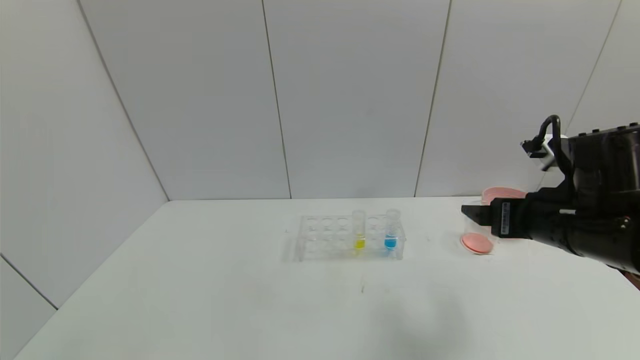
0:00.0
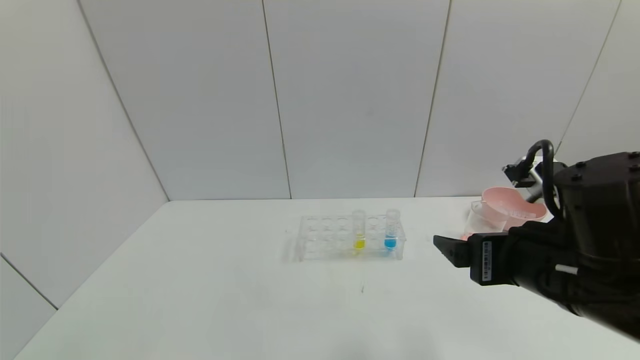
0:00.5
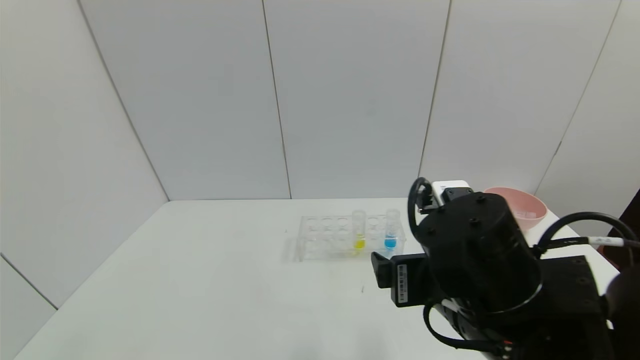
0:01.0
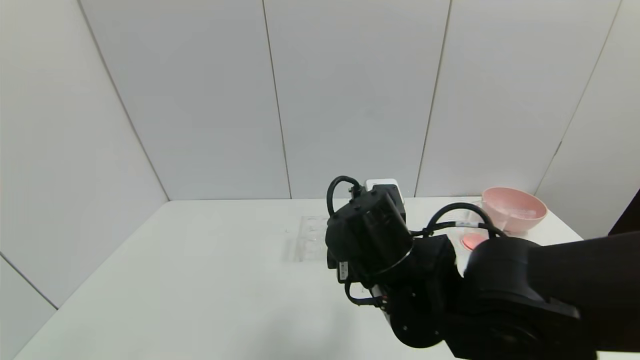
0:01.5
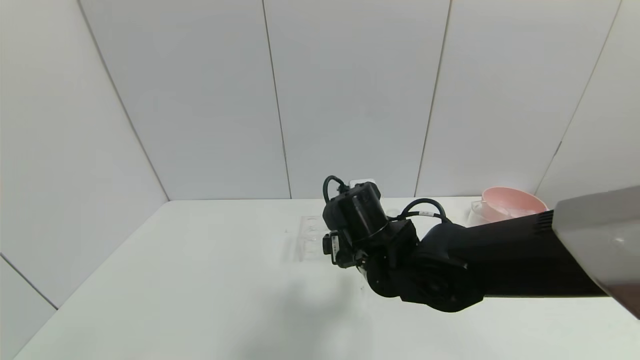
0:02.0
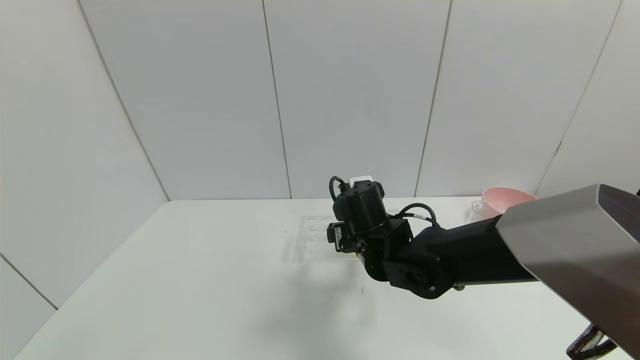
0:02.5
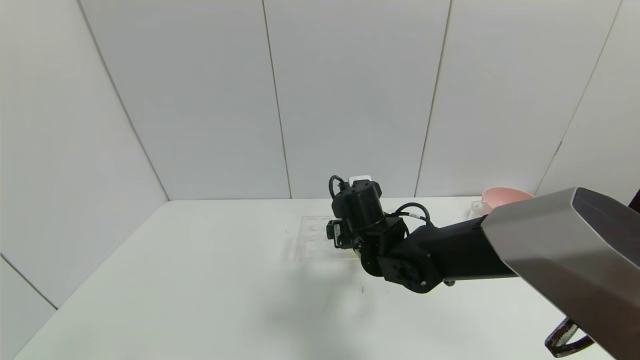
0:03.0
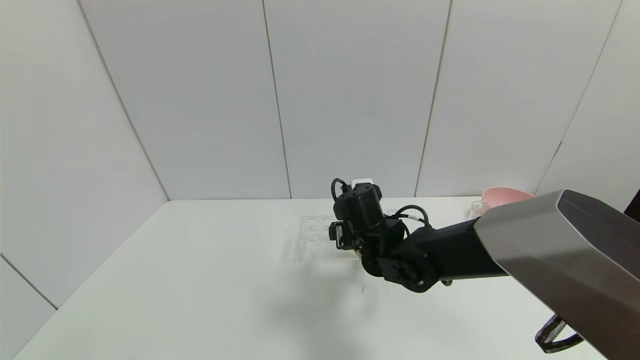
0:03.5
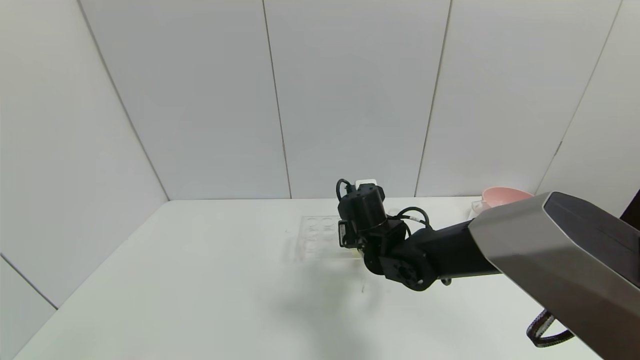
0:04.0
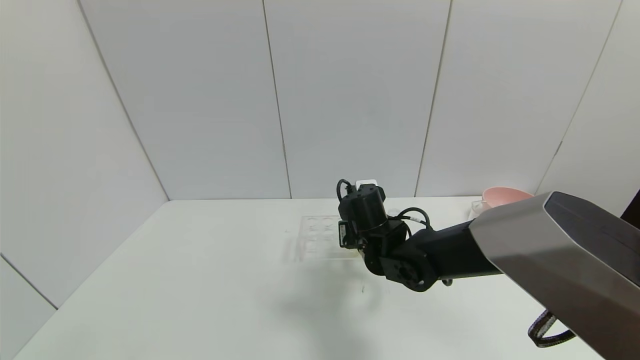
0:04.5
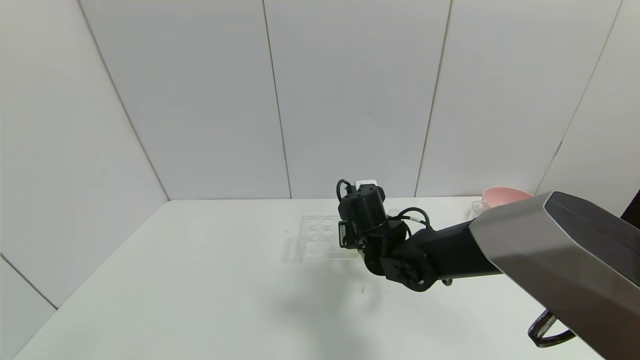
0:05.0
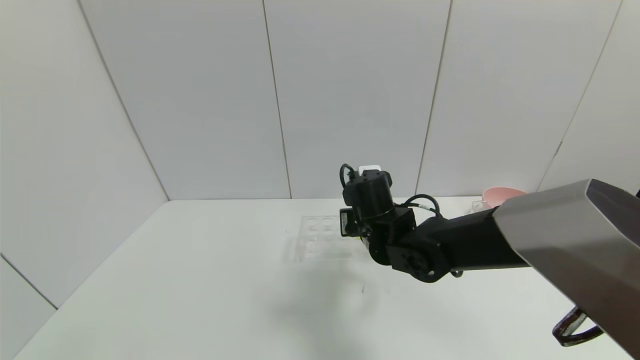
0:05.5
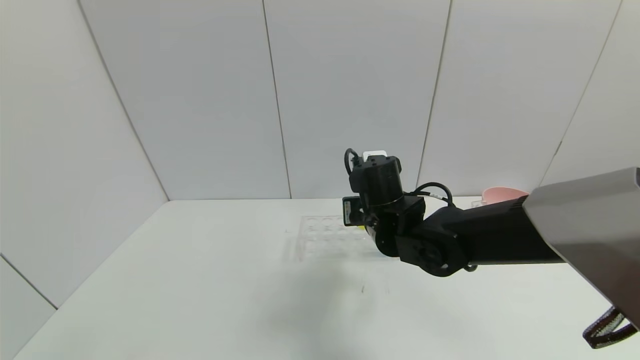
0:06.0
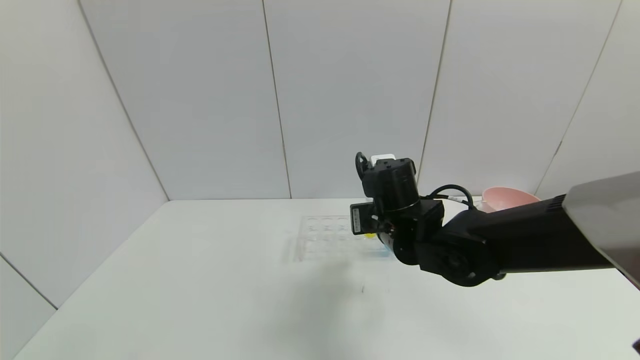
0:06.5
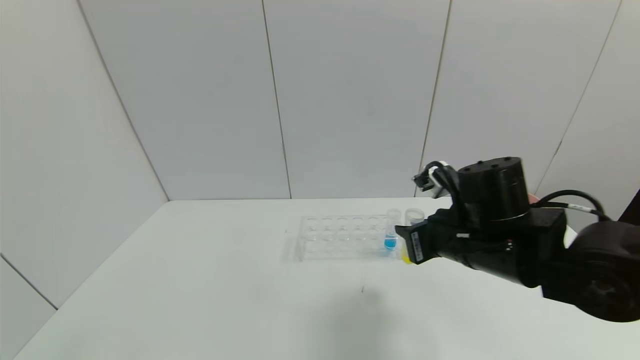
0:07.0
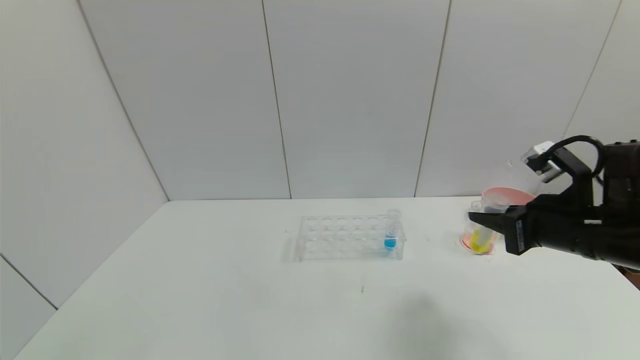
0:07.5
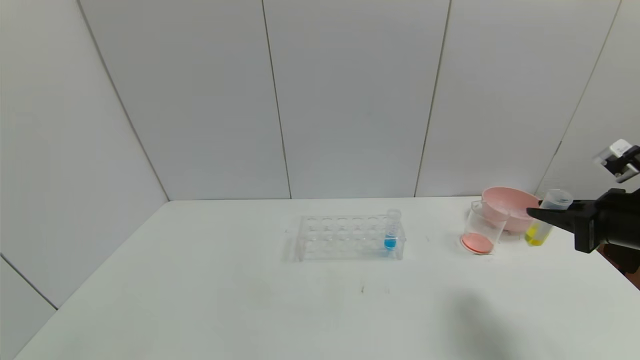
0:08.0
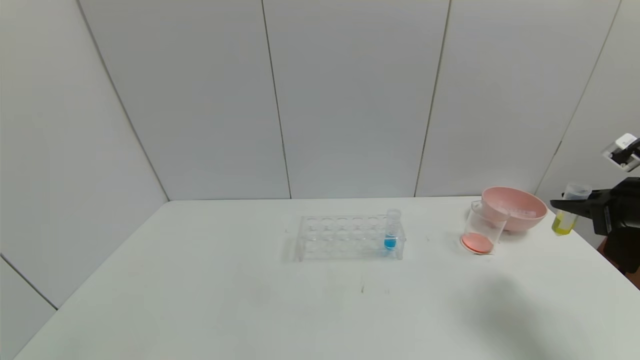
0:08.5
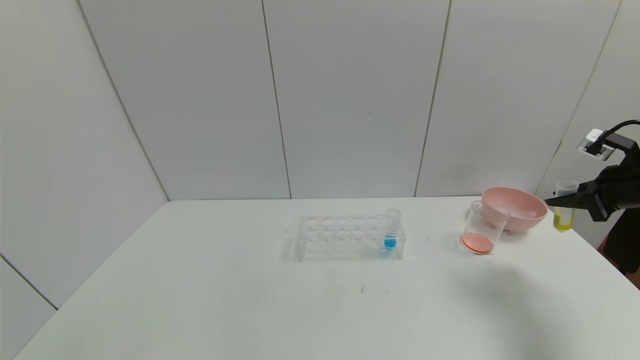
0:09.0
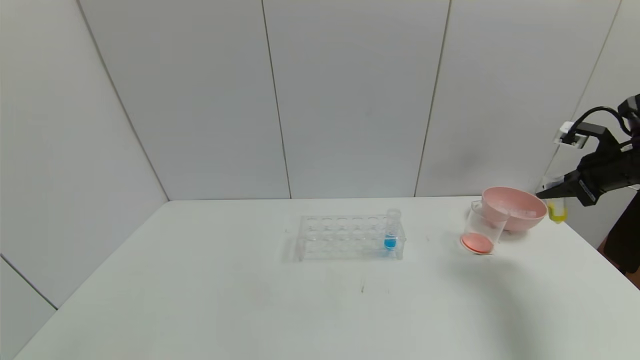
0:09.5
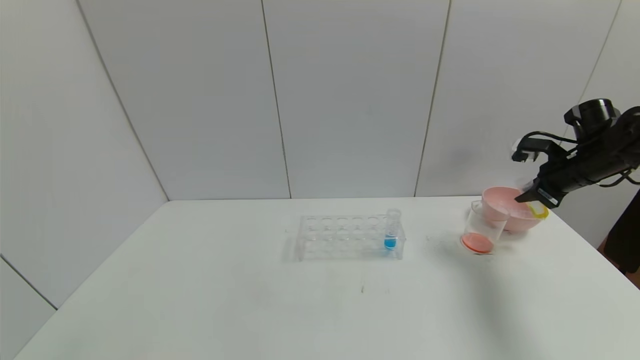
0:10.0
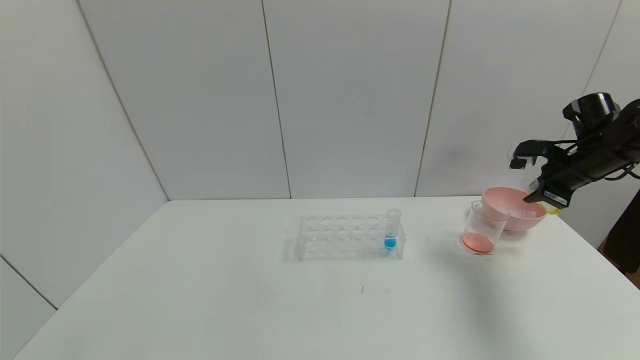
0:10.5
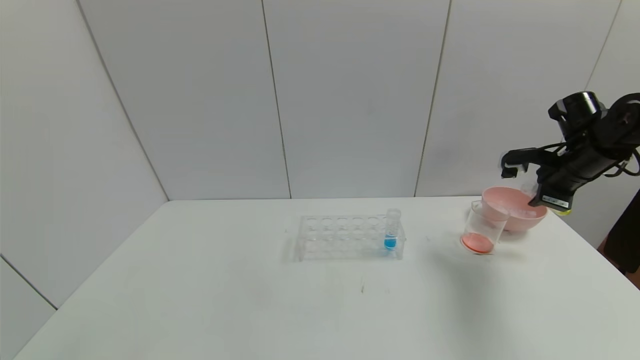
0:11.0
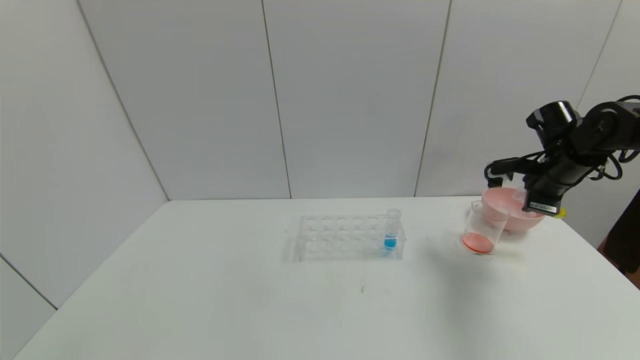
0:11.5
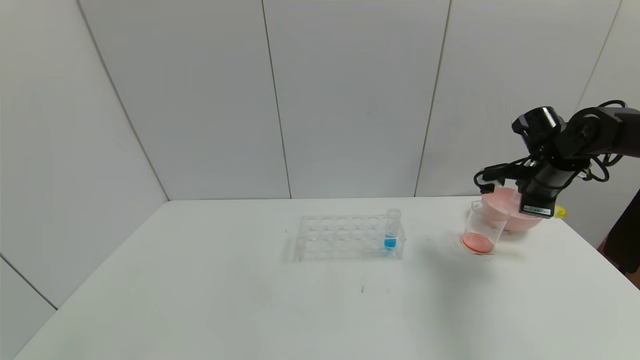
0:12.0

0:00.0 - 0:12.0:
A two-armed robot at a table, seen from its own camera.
Task of the whole recording: pick up the test tube with yellow pigment and the test tube with red pigment by grippers and pour them into the beaker.
Step, 0:00.0 - 0:04.5: Grasp the yellow reagent with the right gripper.
0:00.0 - 0:02.0: The right gripper goes approximately 20 cm to the left.
0:02.0 - 0:04.0: The right gripper moves forward, roughly 5 cm, and closes.
0:04.0 - 0:06.0: The right gripper heads upward, covering about 5 cm, and closes.
0:06.0 - 0:08.0: The right gripper travels to the right by some 30 cm.
0:08.0 - 0:10.0: The right gripper is displaced forward by roughly 15 cm.
0:10.0 - 0:12.0: The right gripper shifts roughly 5 cm to the left.

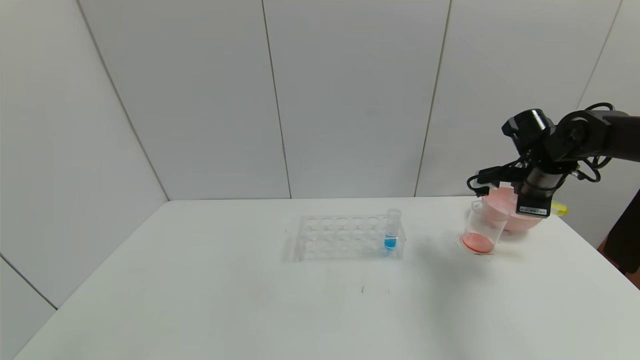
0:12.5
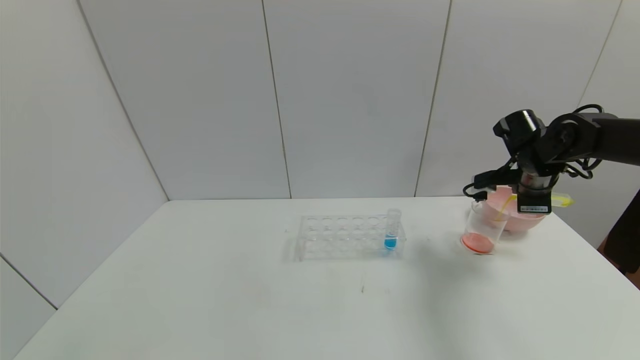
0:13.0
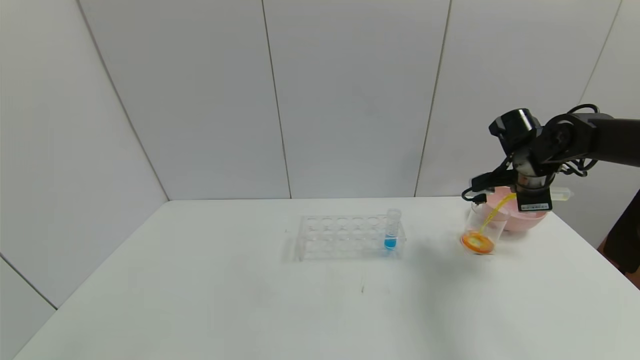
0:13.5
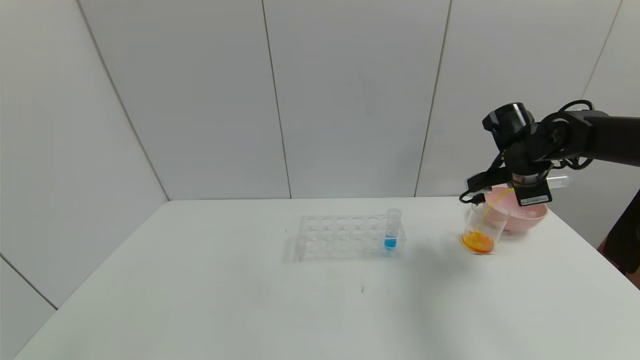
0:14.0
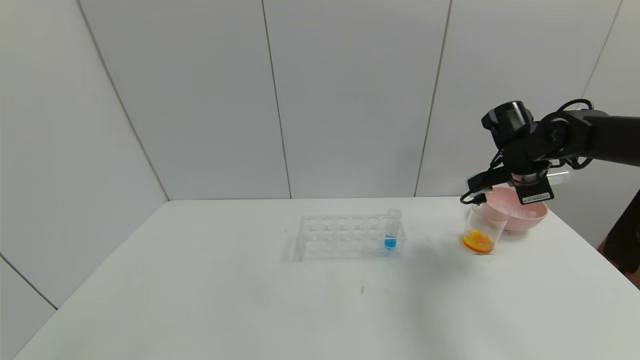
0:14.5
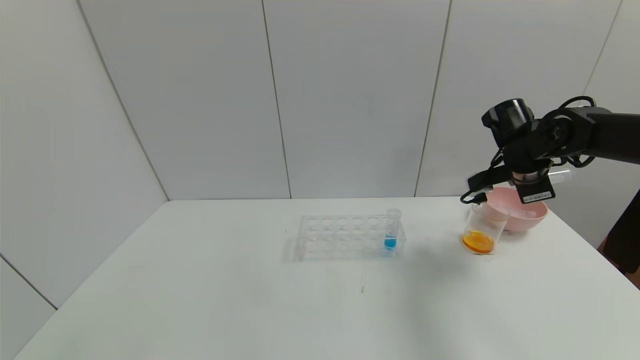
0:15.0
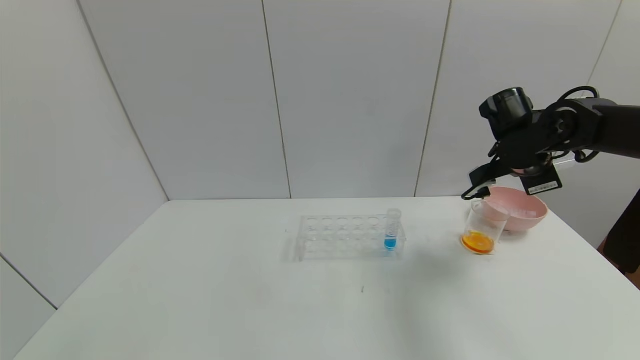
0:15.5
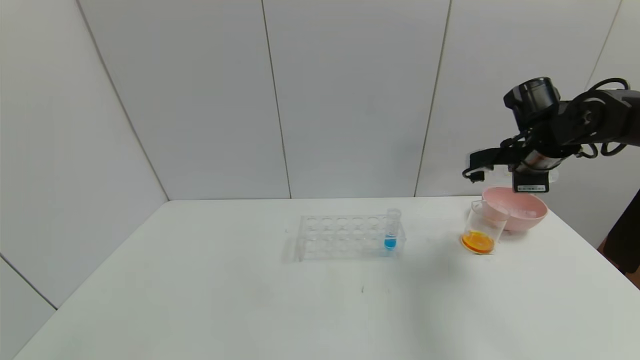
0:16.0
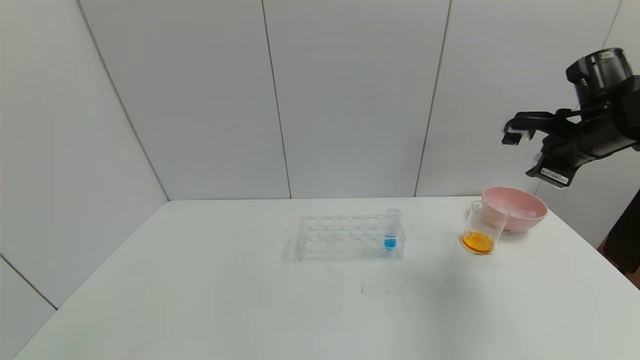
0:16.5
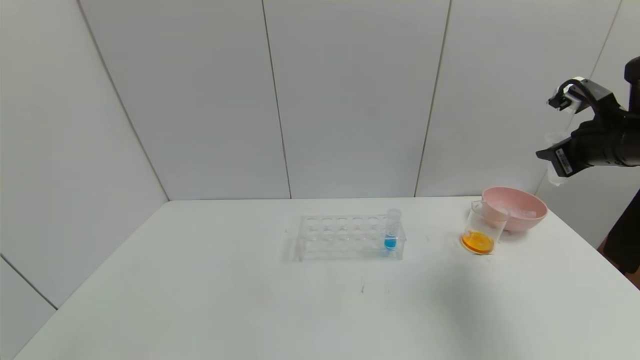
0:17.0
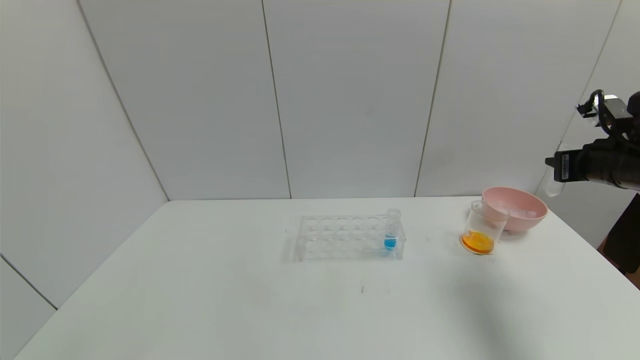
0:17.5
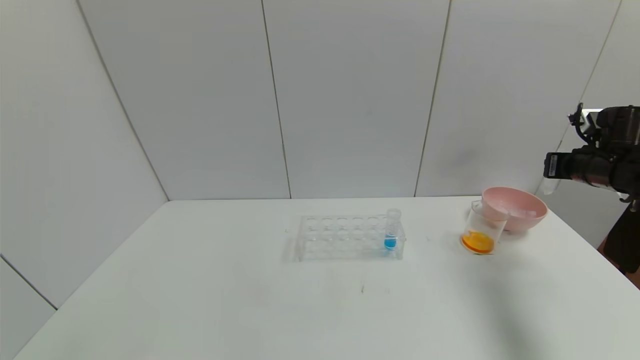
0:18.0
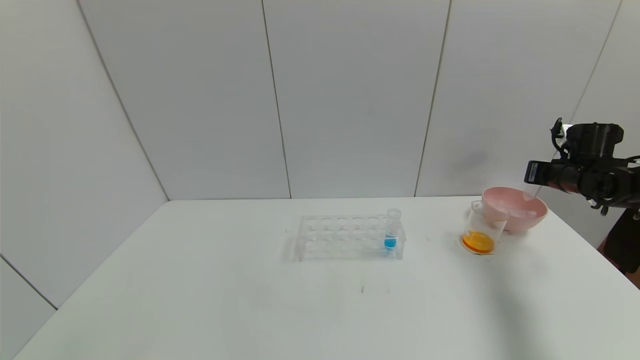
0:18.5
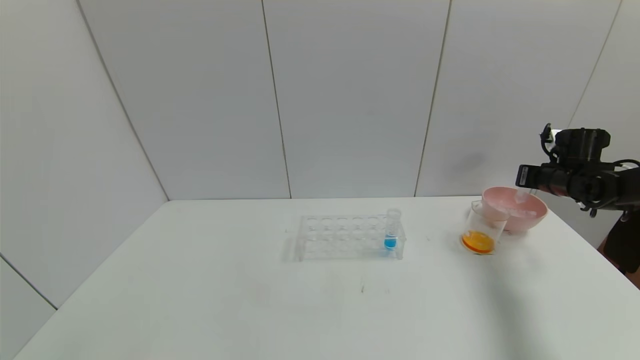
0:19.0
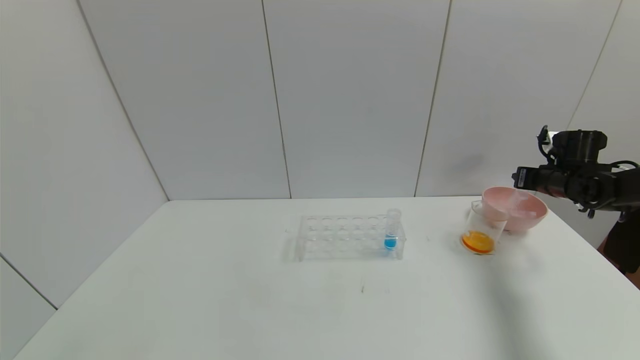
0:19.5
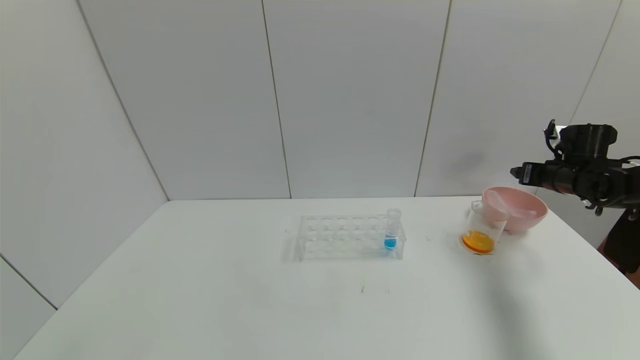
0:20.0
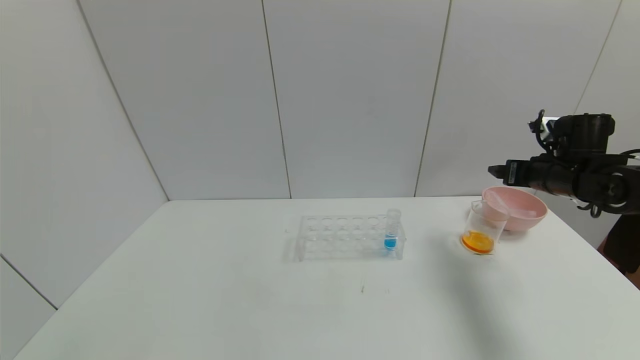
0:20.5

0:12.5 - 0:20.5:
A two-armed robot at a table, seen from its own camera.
Task of the whole recording: pick up the test tube with yellow pigment and the test tube with red pigment by grippers and pour them into the beaker.
Step, 0:12.5 - 0:14.5: Pour the yellow reagent into the graduated cylinder with the right gripper.
Step, 0:15.0 - 0:19.5: Place the test tube into the pink bowl with the right gripper.
0:14.5 - 0:16.5: The right gripper shifts some 10 cm upward and backward.
0:16.5 - 0:18.5: The right gripper shifts about 15 cm downward, to the right and forward.
0:18.5 - 0:20.5: The right gripper travels to the left and backward by some 10 cm, and opens its fingers.
